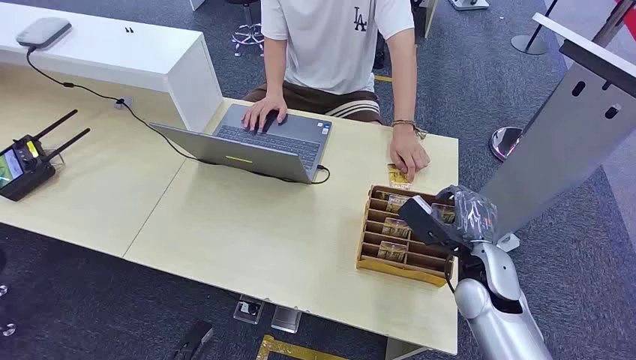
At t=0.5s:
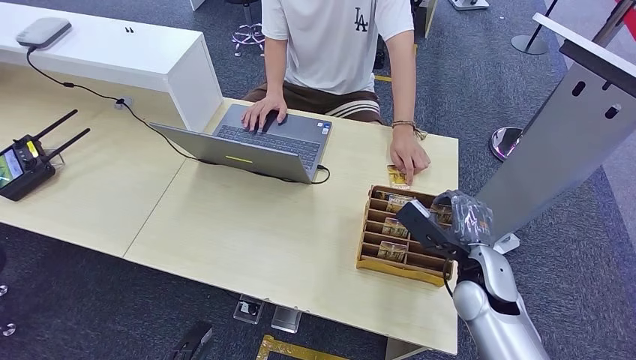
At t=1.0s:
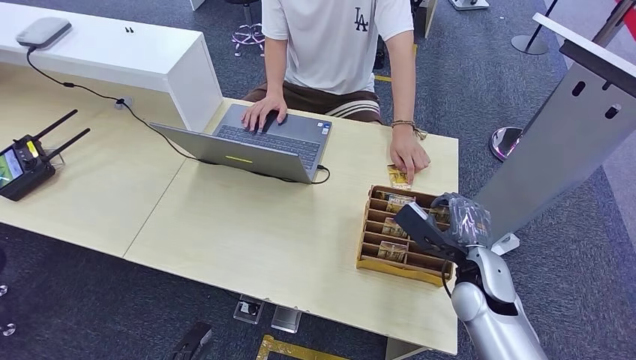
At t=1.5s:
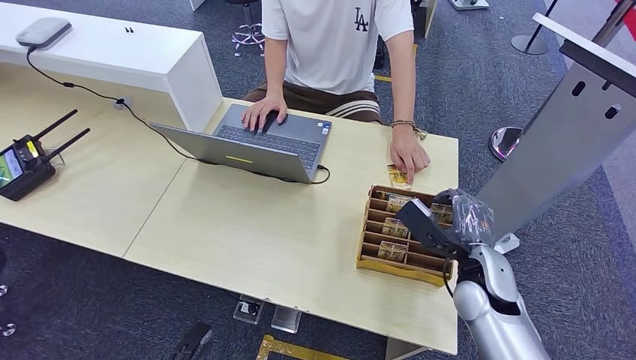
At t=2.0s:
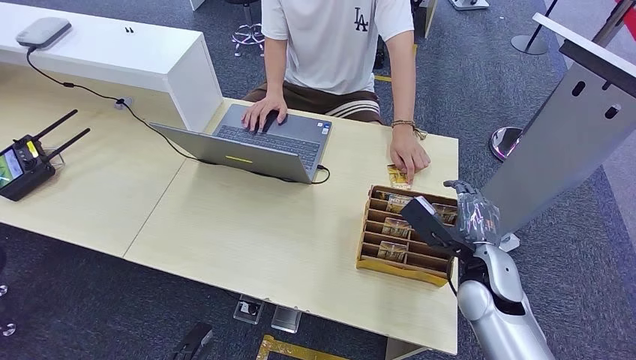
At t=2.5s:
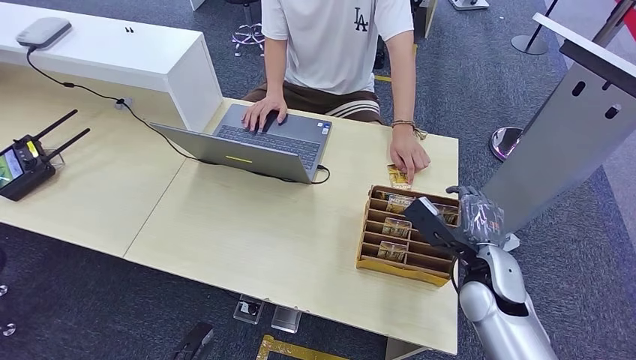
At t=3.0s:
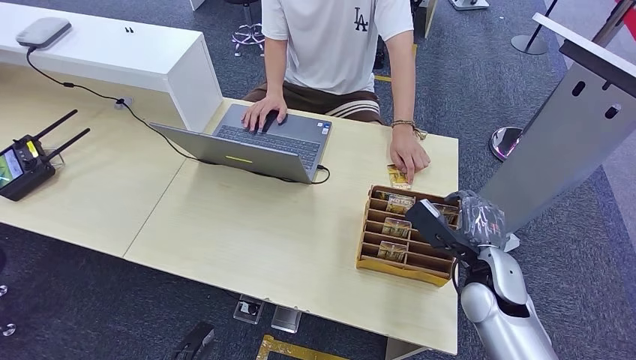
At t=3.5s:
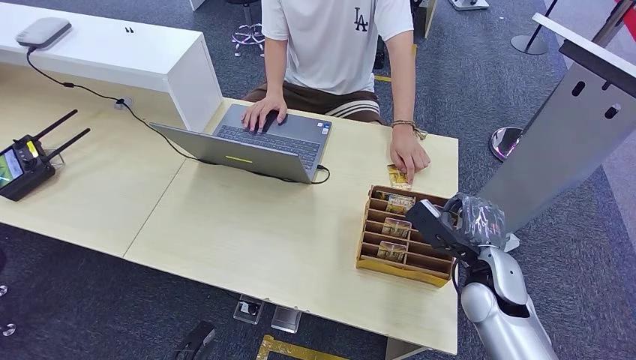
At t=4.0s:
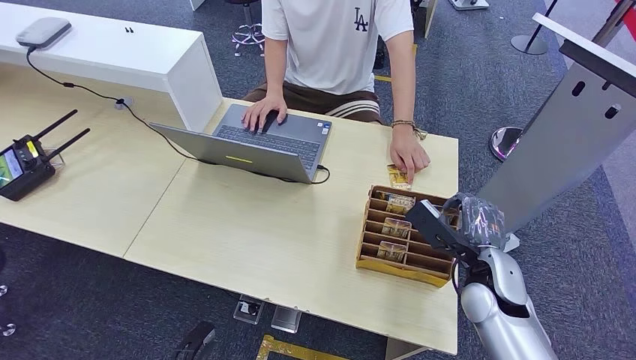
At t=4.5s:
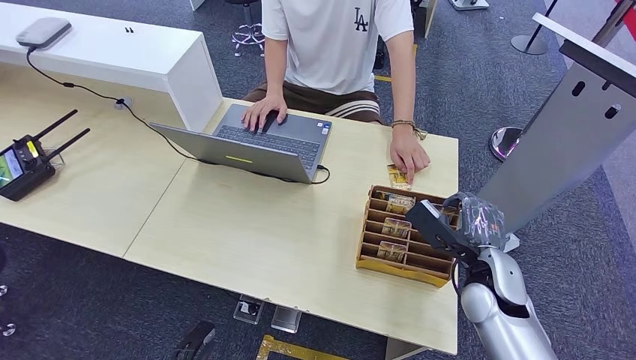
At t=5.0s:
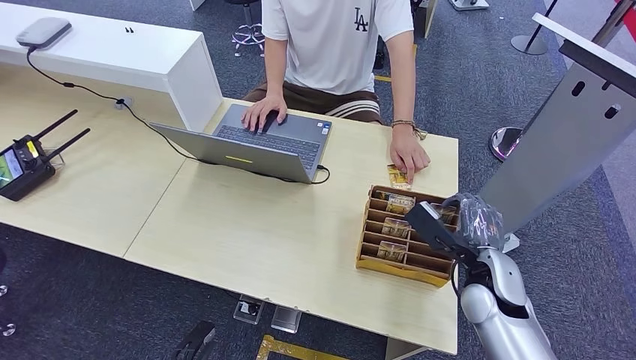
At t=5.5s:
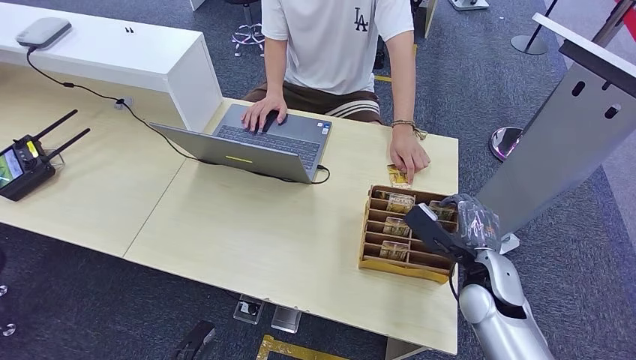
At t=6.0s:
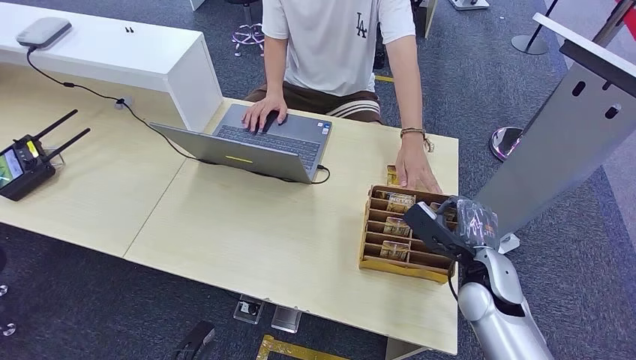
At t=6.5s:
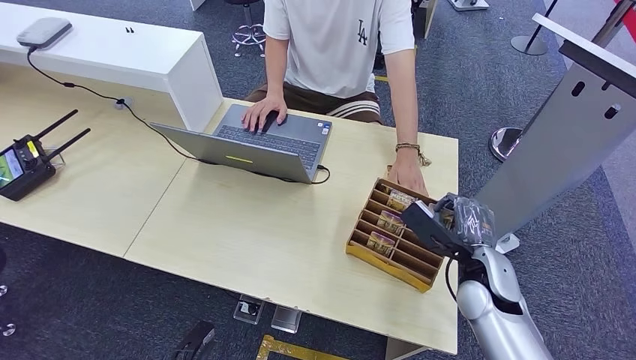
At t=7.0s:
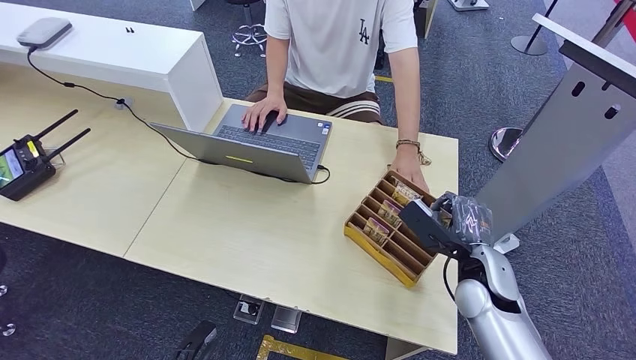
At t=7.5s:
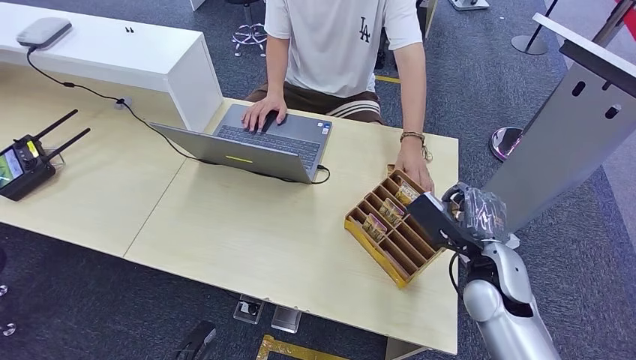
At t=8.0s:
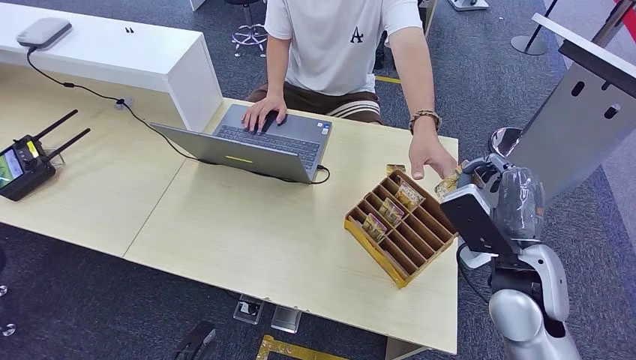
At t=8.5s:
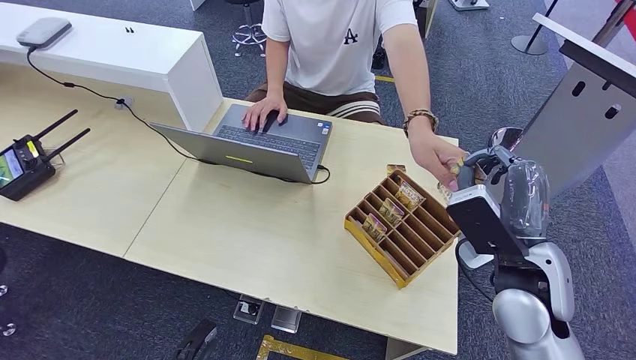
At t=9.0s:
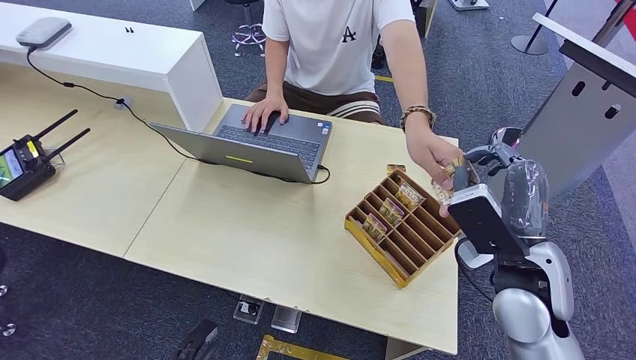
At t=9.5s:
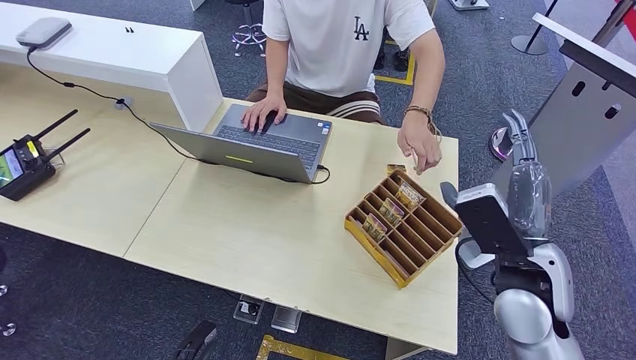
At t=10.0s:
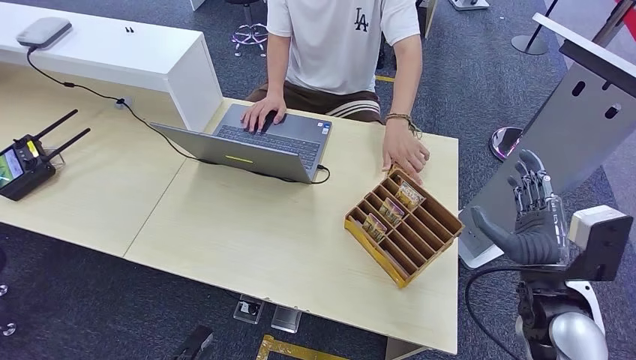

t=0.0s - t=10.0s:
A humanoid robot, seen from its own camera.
Task of the whole recording: Pick up the card and hand it over to the target person.
Step, t=0.0s - t=7.0s: Pick up the key card from the card box.
Step, t=7.5s - t=10.0s: Hand the key card to the target.
t=2.0s - t=4.0s: There are only small adjustments of the hands.
t=4.0s - t=6.0s: The two hands keep their place.
t=6.0s - t=8.0s: The right hand is displaced upward by approximately 10 cm.
t=8.0s - t=10.0s: The right hand heads to the right and downward, covering roughly 15 cm.
